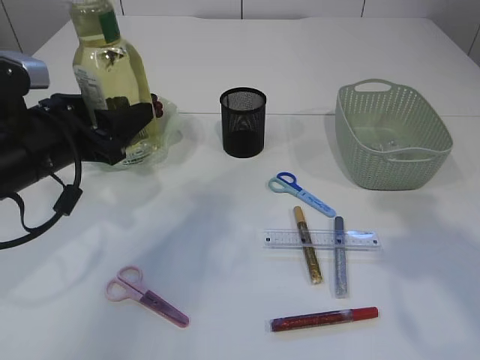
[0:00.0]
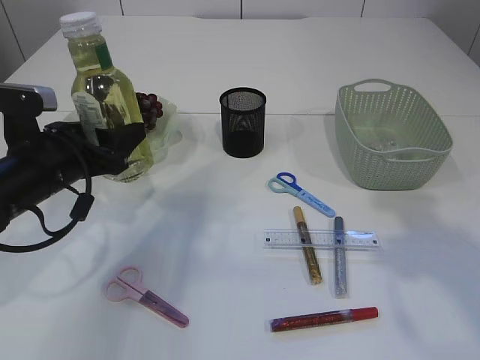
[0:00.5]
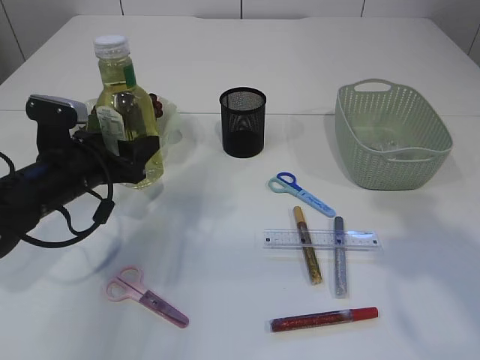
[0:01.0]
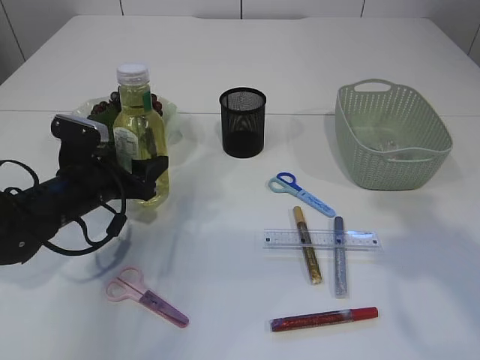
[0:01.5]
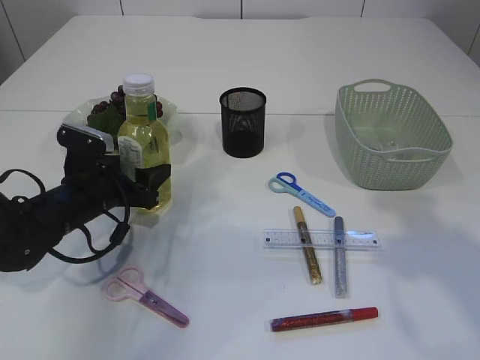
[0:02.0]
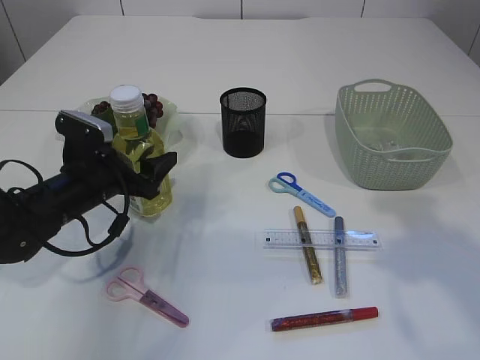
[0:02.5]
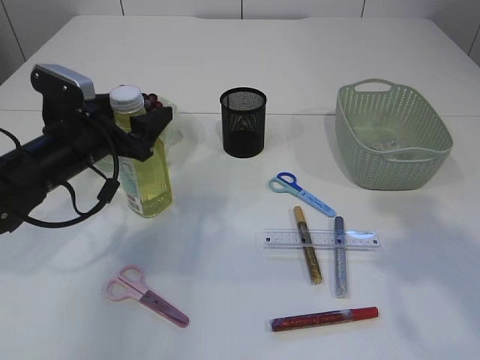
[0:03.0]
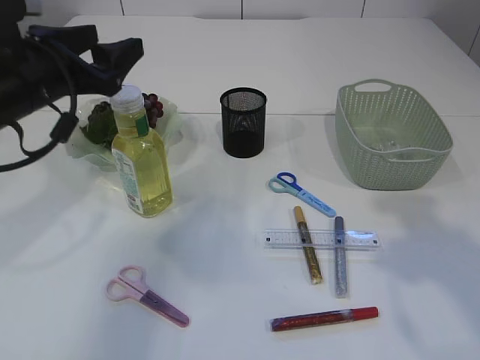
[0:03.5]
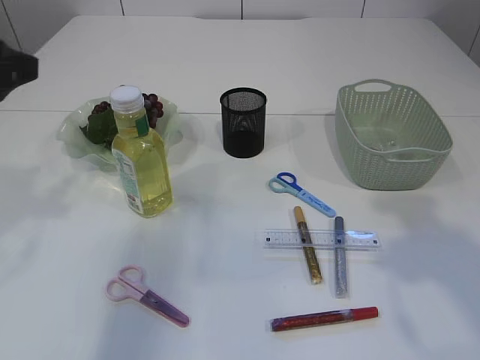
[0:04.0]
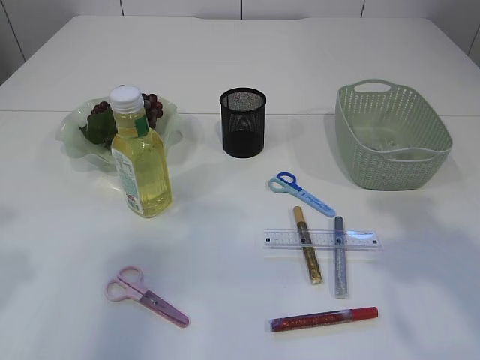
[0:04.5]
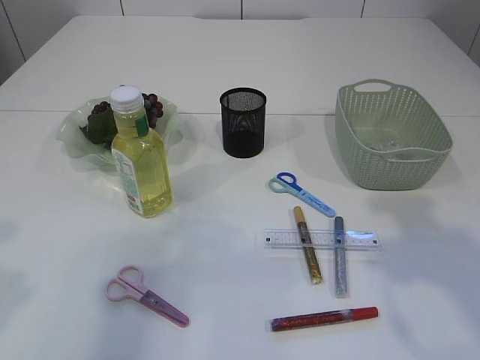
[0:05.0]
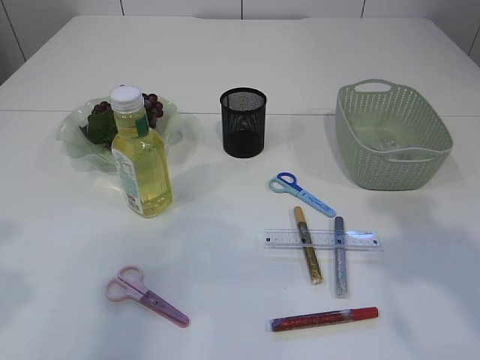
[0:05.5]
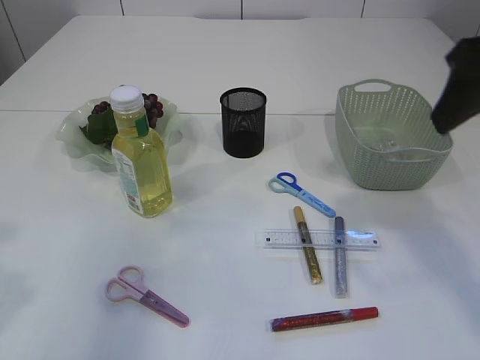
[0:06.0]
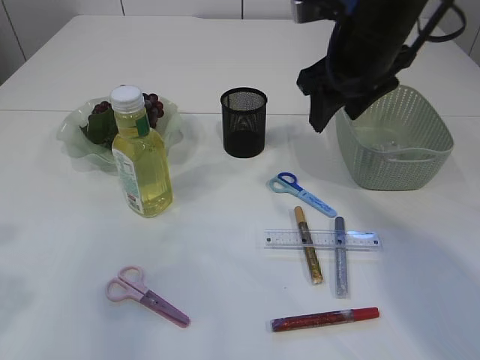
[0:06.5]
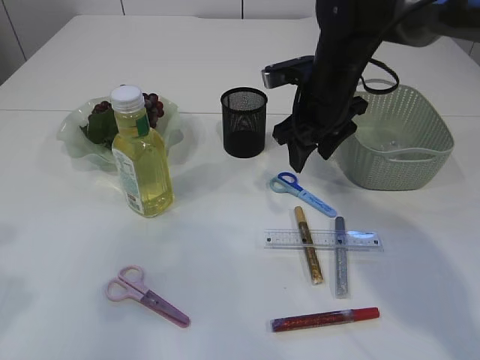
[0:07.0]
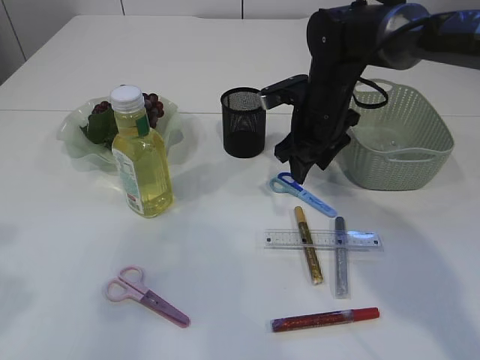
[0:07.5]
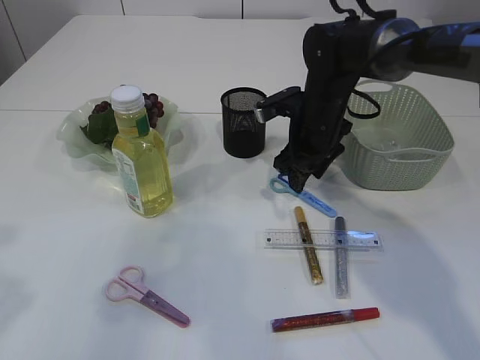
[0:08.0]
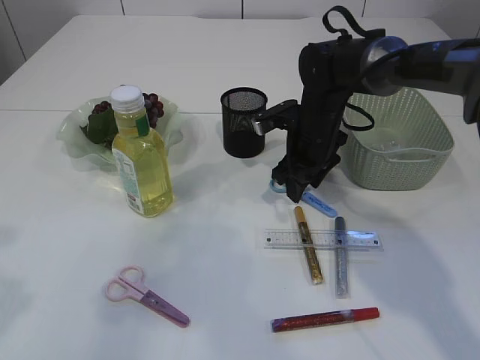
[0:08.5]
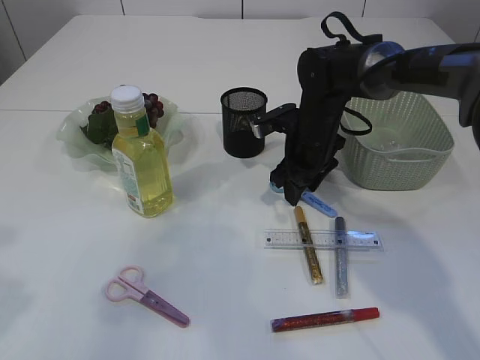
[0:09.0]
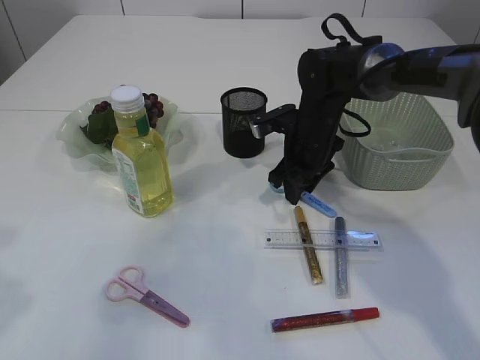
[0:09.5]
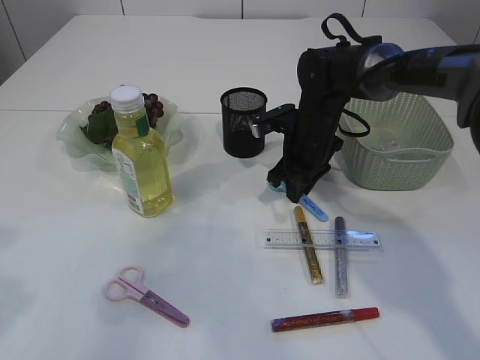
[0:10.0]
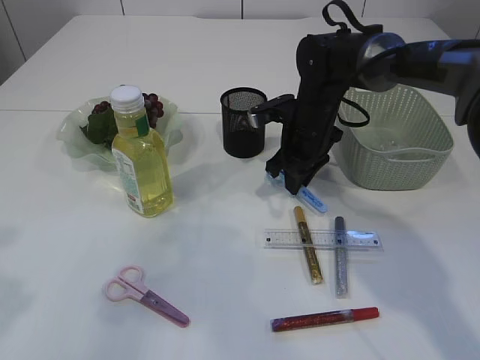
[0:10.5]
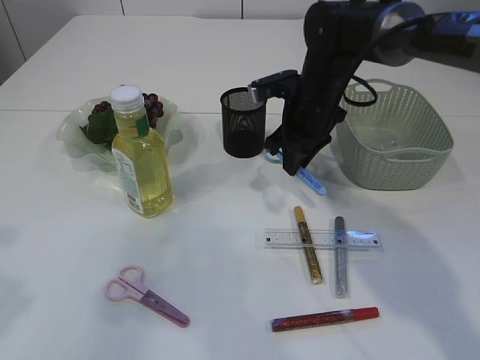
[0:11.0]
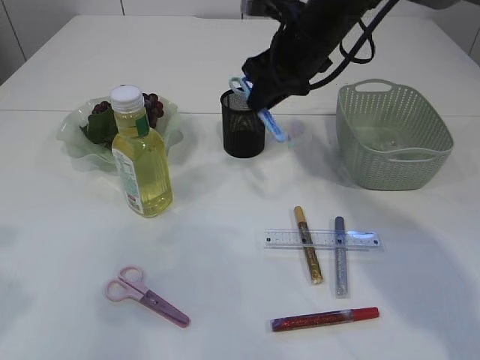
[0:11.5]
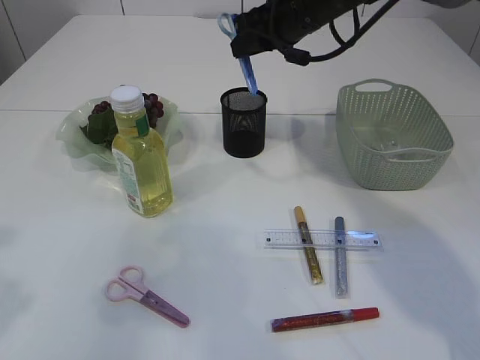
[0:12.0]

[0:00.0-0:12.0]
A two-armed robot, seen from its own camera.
Step, 0:00.0 to 0:03.0: Place the bottle.
Step, 0:03.5 to 0:11.0: pick up the blue scissors.
0:00.0 to 0:02.0: The left gripper goes about 15 cm downward and forward.
0:02.0 to 0:04.0: The left gripper travels upward by approximately 25 cm.
0:04.0 to 0:06.0: The right gripper is displaced forward by some 5 cm. Meanwhile the left gripper moves backward, roughly 10 cm.
0:06.0 to 0:08.0: The right gripper moves downward, forward and to the left, some 30 cm.
0:08.0 to 0:10.0: The right gripper closes its fingers.
0:10.0 to 0:12.0: The right gripper heads upward, covering approximately 15 cm.

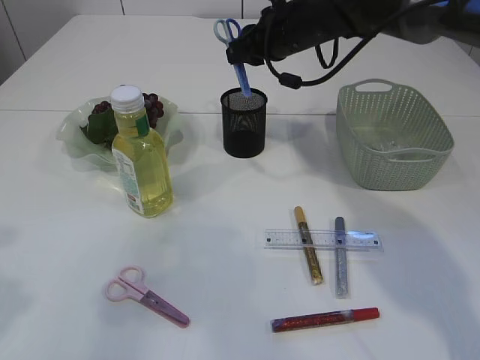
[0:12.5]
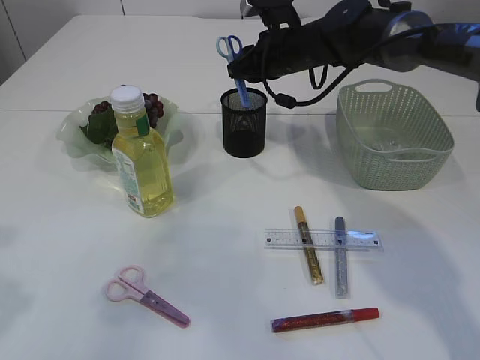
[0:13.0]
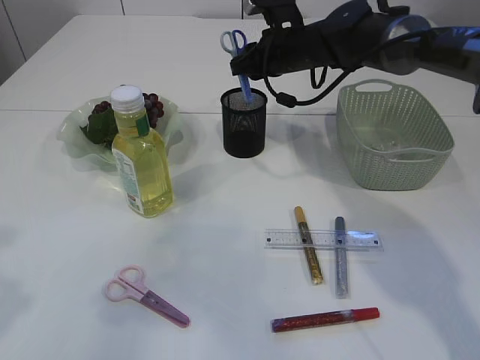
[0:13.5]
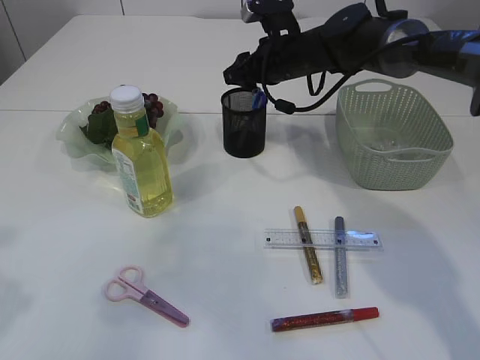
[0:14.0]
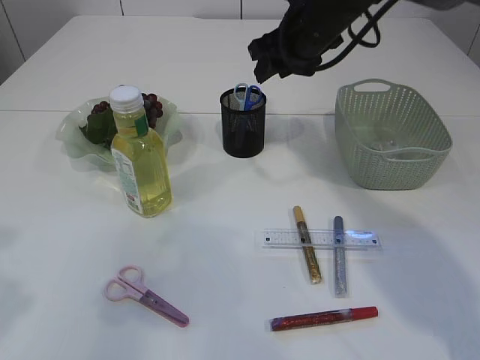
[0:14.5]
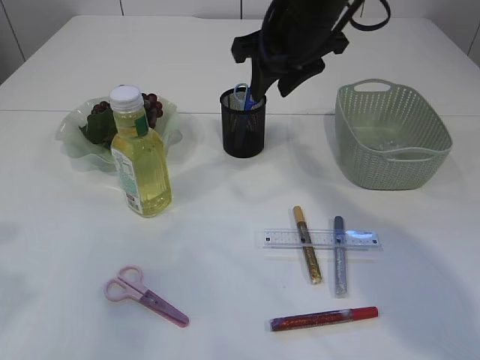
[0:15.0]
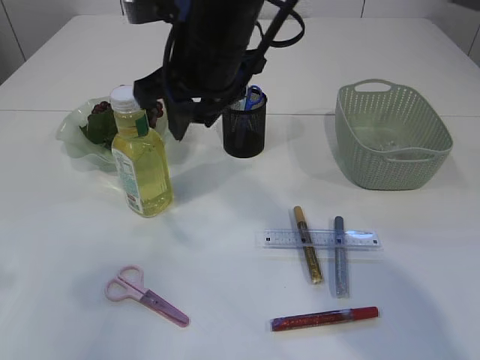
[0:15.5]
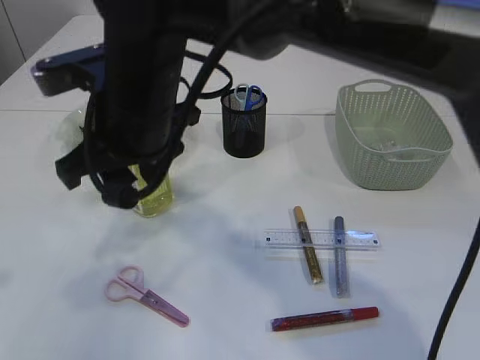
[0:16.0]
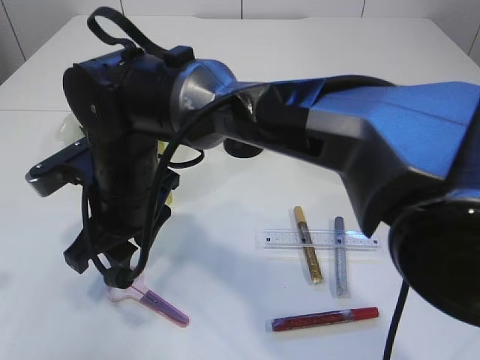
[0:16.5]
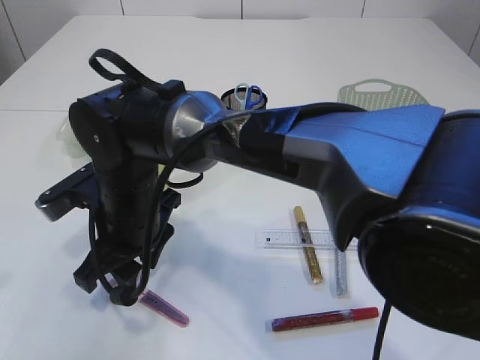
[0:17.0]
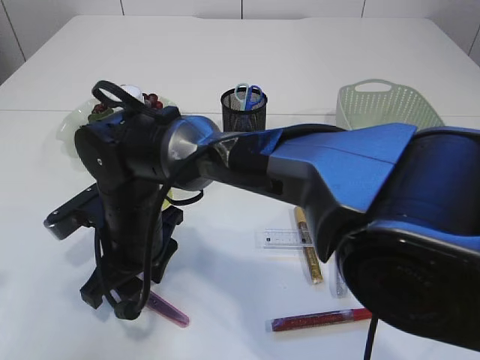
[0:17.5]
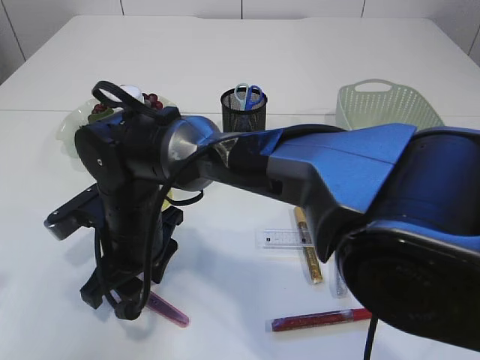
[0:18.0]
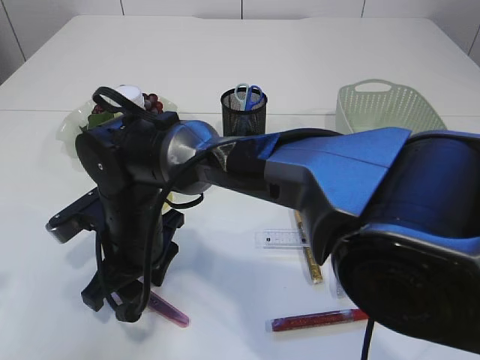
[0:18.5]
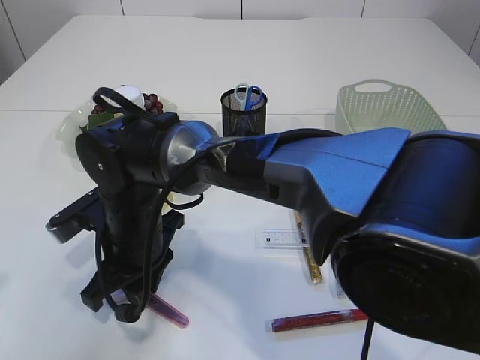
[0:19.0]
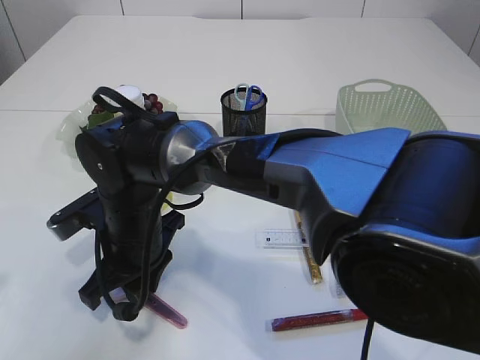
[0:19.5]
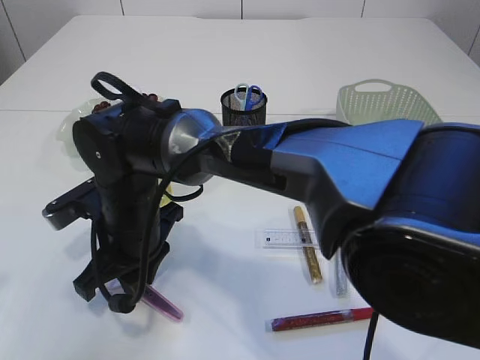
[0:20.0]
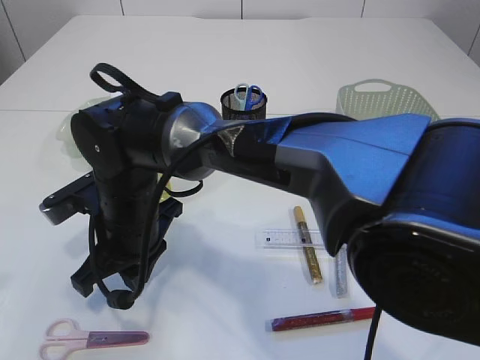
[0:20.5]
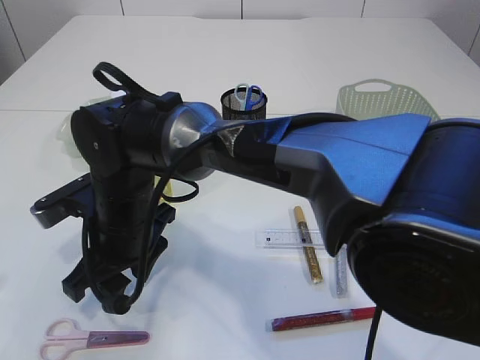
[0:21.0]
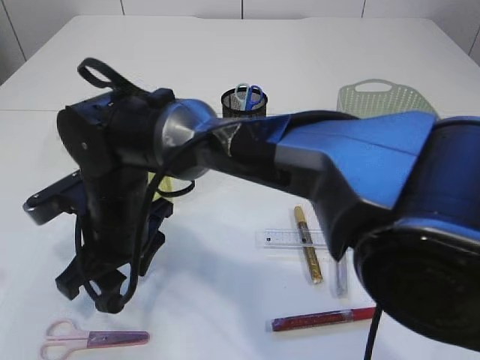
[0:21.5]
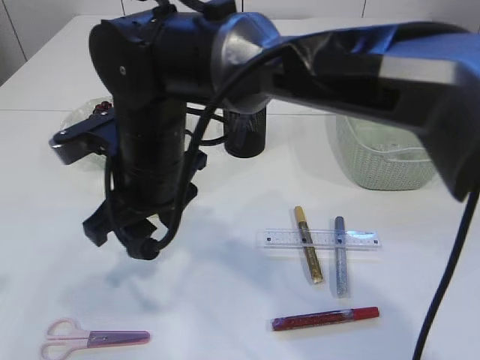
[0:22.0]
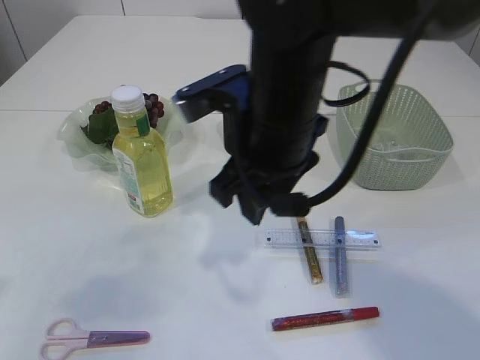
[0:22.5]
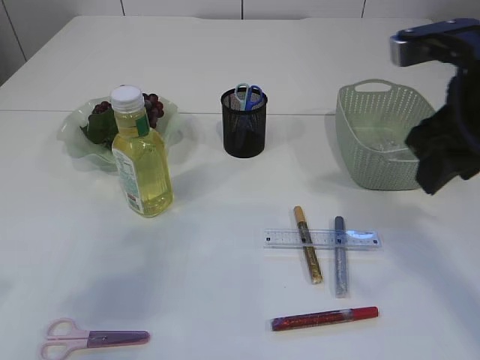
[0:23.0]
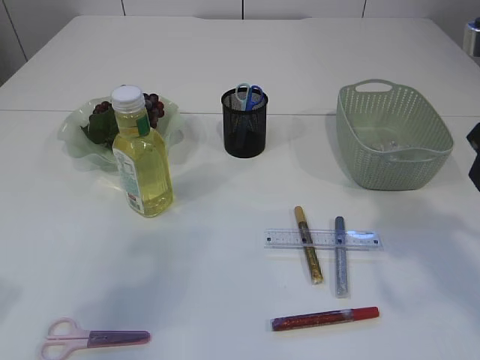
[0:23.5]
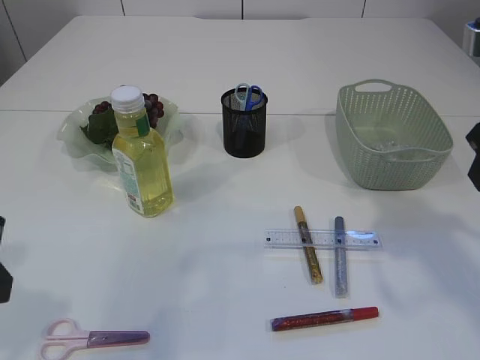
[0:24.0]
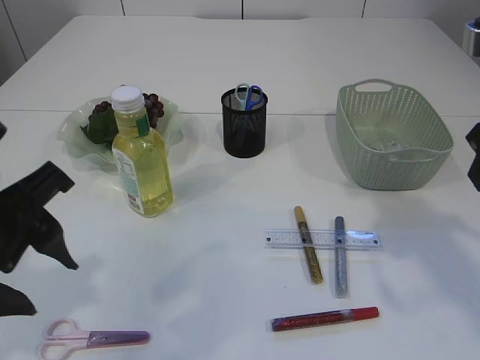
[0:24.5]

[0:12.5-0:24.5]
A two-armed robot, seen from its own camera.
0:12.5 to 0:14.5: The right gripper opens up.
0:14.5 to 0:16.5: The right gripper heads to the left and backward, covering some 30 cm.
0:16.5 to 0:18.5: The right gripper goes approximately 5 cm downward.
0:18.5 to 0:20.5: The right gripper closes its fingers.
0:20.5 to 0:22.5: The right gripper shifts some 20 cm to the right and upward, and opens up.
0:22.5 to 0:24.5: The left gripper goes about 10 cm to the right; the right gripper shifts roughly 20 cm to the right.

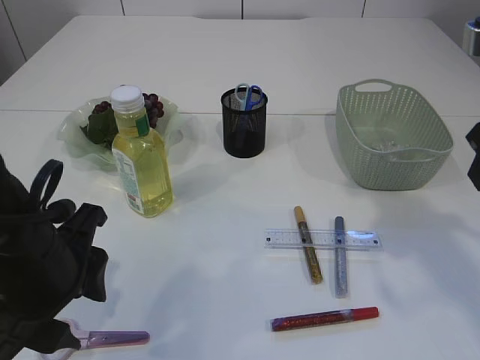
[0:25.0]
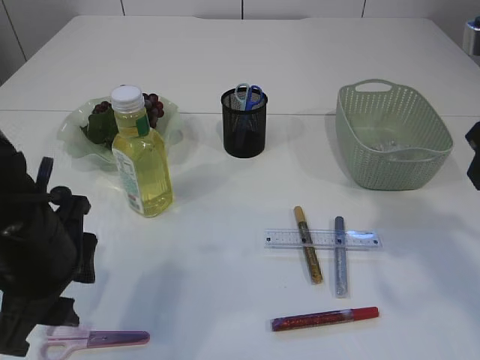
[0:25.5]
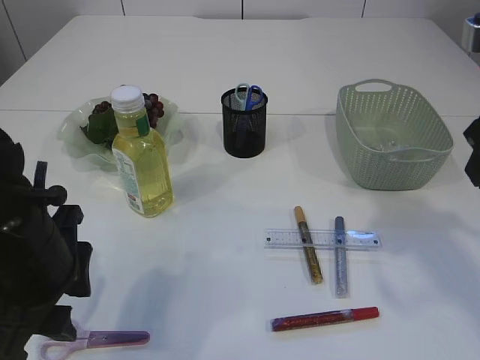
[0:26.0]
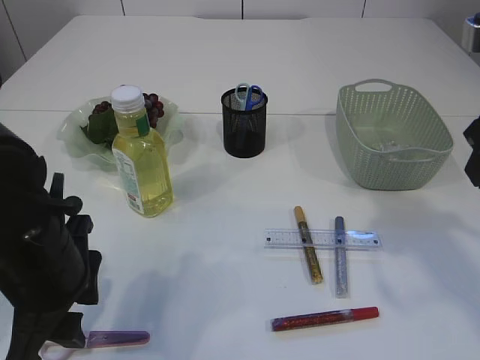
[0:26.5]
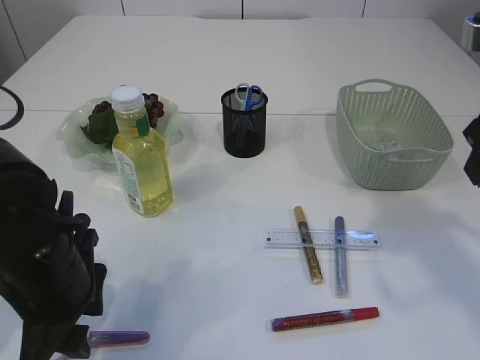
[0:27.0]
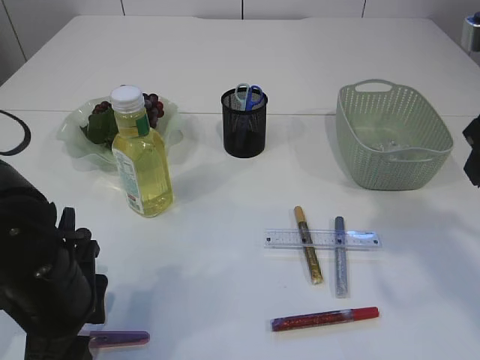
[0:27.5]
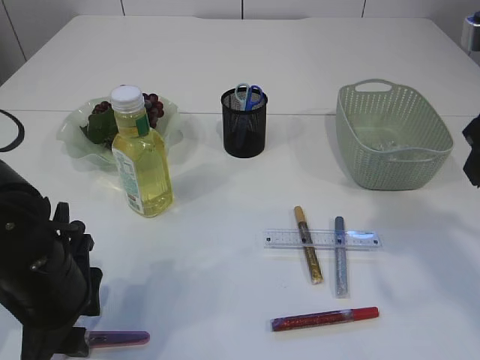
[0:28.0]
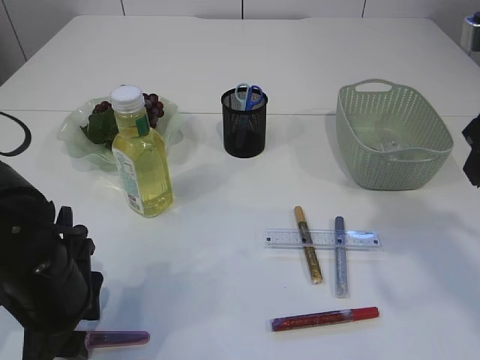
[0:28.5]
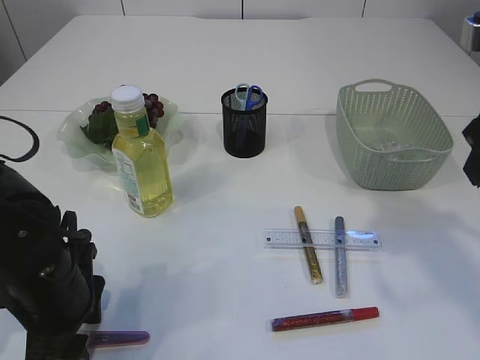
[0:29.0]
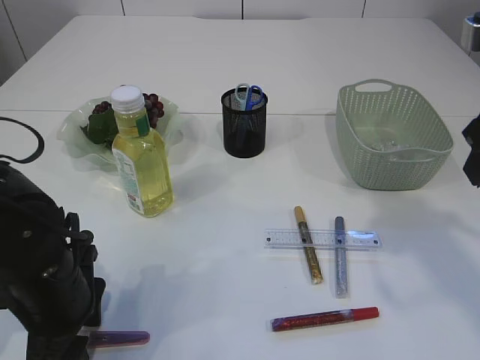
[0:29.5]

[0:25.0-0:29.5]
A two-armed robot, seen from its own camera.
0:25.0 to 0:27.0: The left gripper heads downward, covering roughly 5 cm.
0:27.0 to 0:29.5: There are only small adjustments of the grippers.
